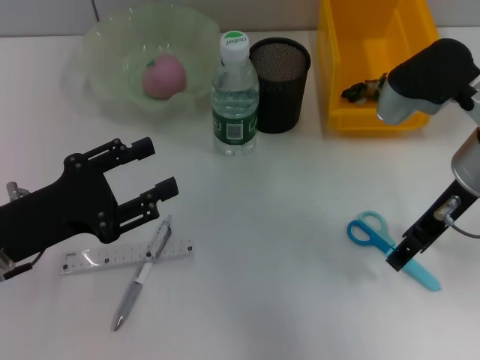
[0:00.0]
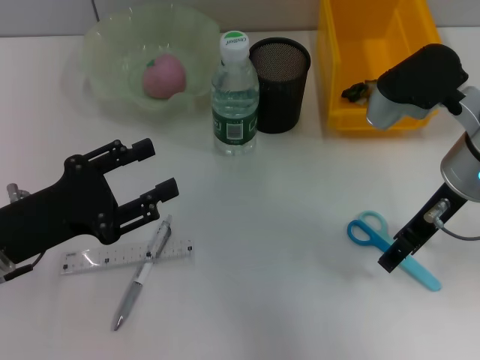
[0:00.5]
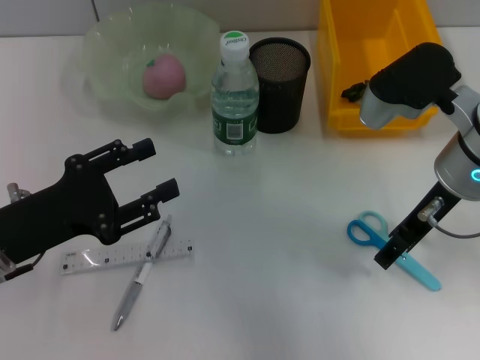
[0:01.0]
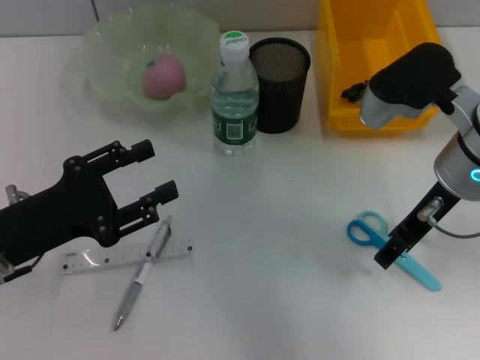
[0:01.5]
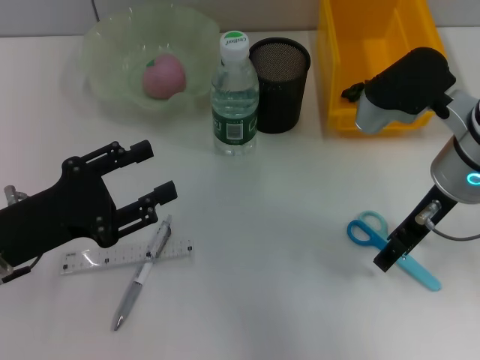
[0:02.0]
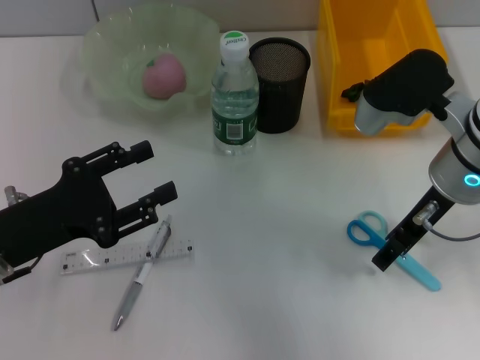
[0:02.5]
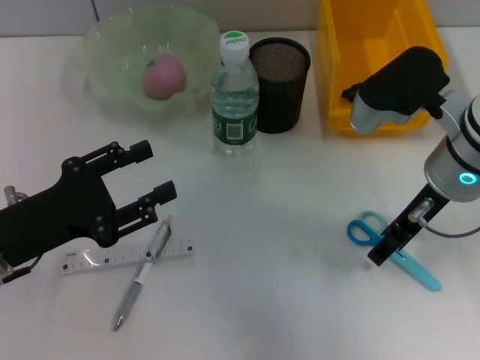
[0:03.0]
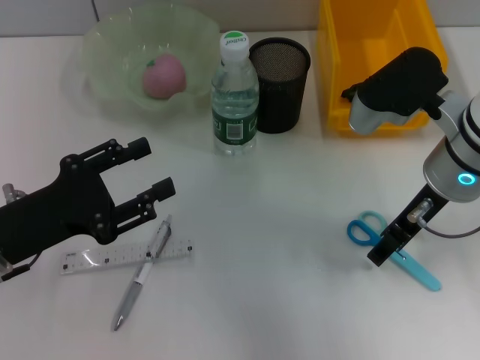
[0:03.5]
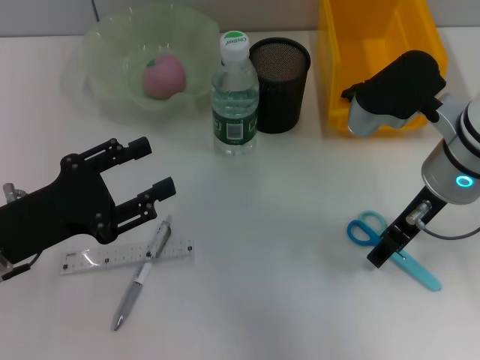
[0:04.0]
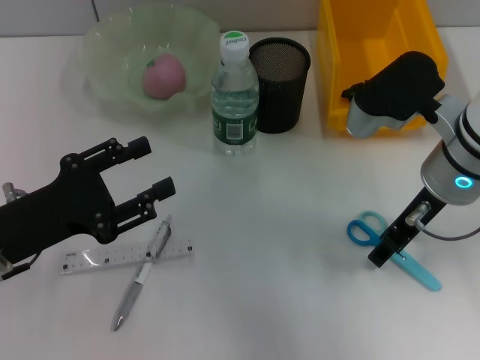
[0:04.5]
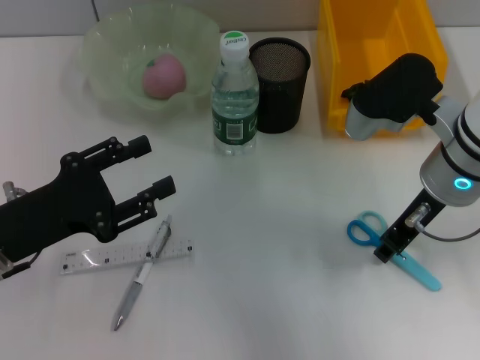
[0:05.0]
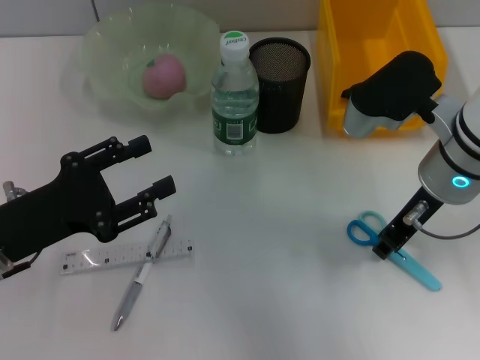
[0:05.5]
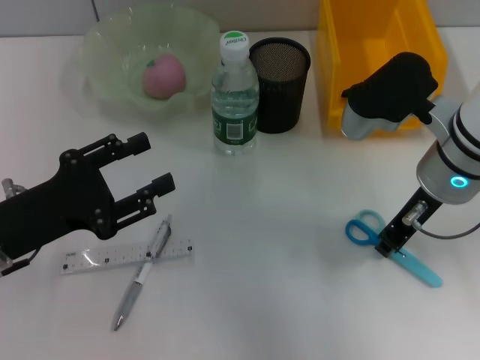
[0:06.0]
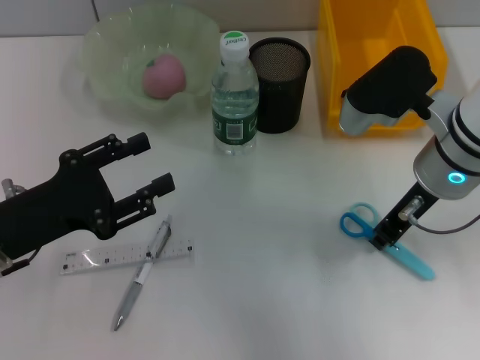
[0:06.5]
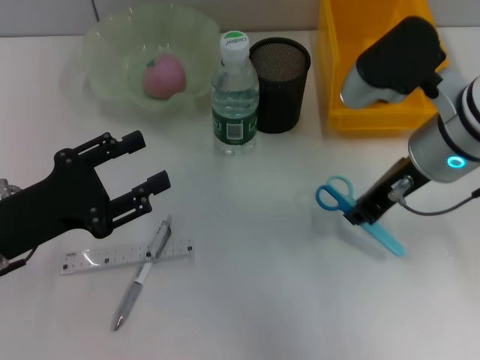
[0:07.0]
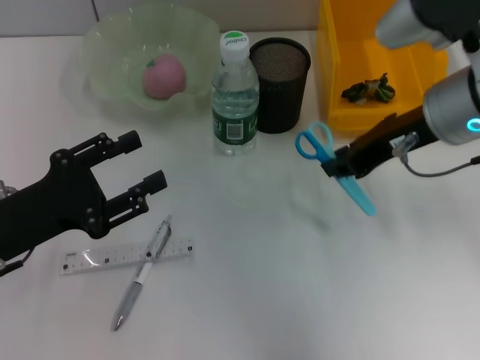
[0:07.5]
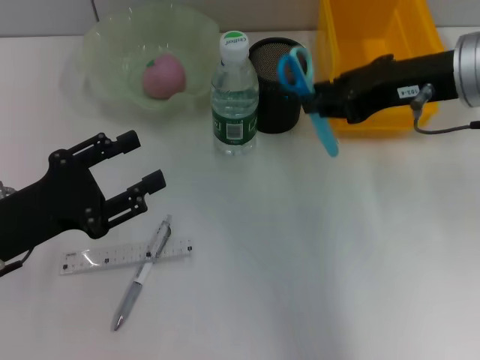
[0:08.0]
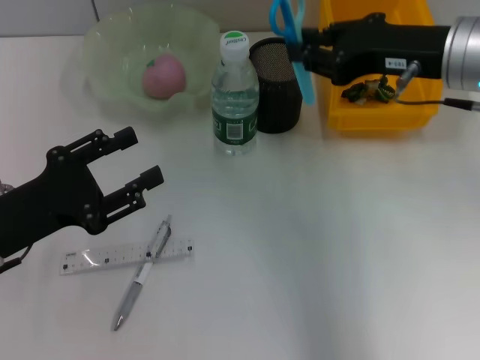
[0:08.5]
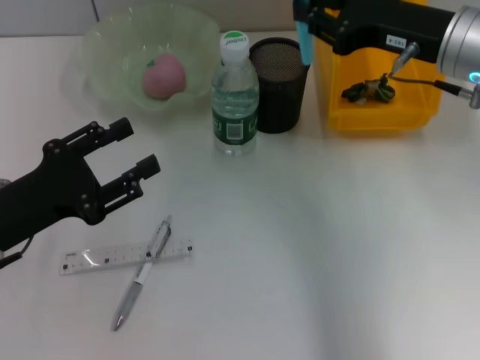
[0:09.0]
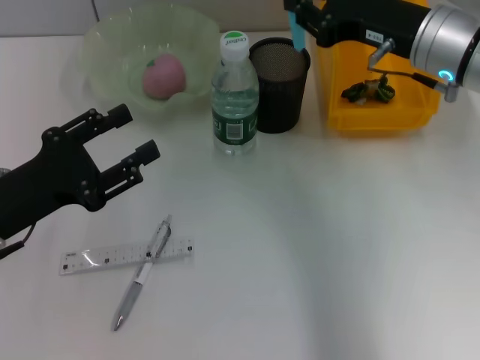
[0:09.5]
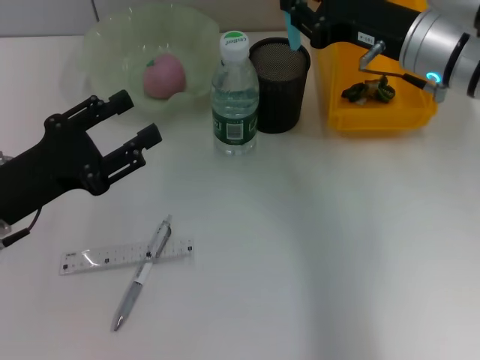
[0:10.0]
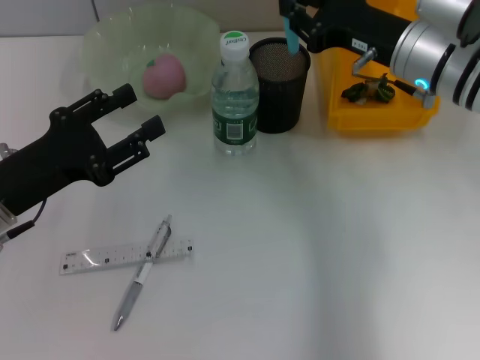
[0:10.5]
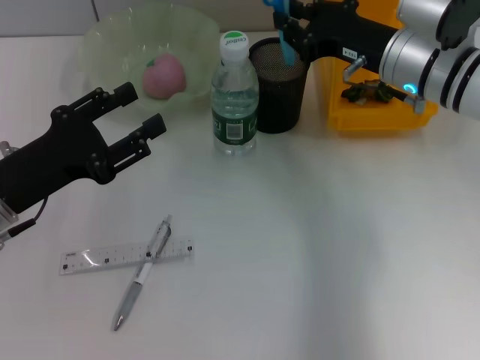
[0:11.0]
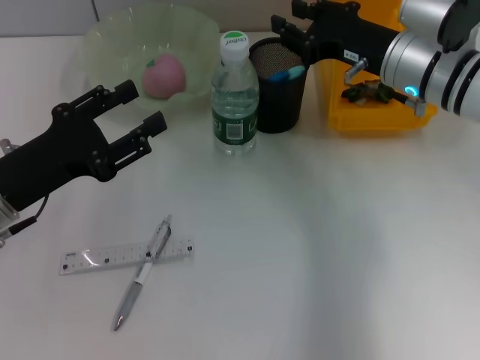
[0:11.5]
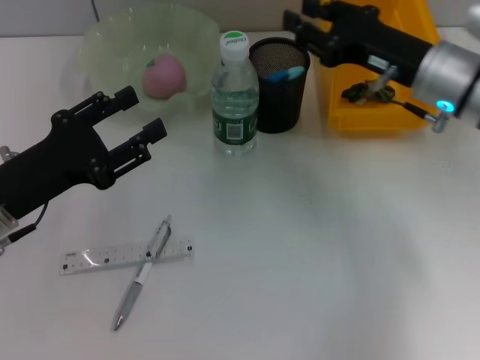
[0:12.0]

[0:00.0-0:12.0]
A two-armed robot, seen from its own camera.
Step, 0:00.0 to 0:06.0: Grab the blue scissors with the right hand.
0:00.0 to 0:02.0: There are only small adjustments of the grippers.
0:02.0 to 0:04.0: The two grippers keep their place.
0:04.0 to 0:06.0: The right gripper closes its fingers.
0:06.0 to 0:08.0: The right gripper goes some 5 cm upward.
0:08.0 to 0:10.0: The right gripper is displaced downward and forward by some 10 cm.
0:10.0 to 0:12.0: The grippers make only small movements.

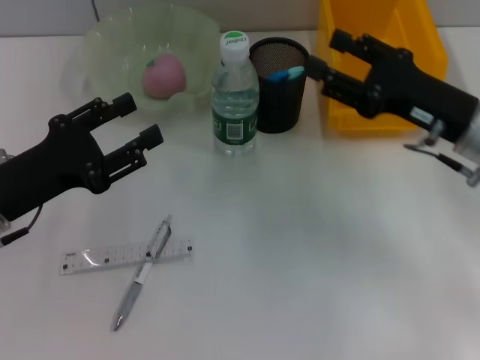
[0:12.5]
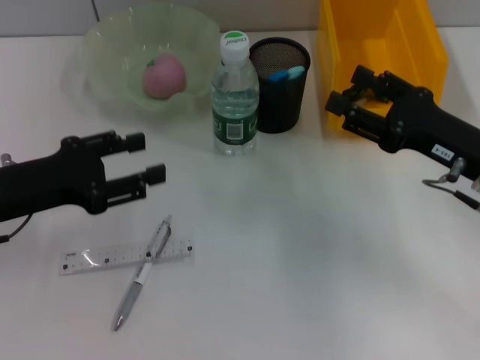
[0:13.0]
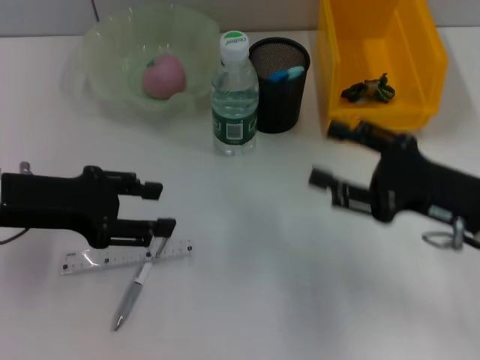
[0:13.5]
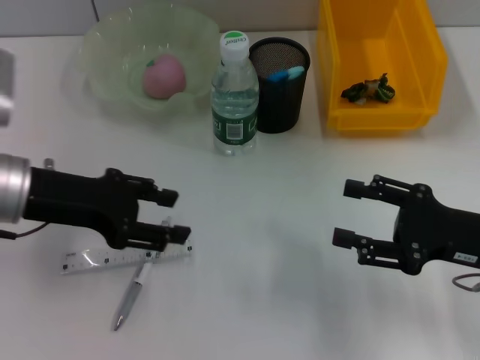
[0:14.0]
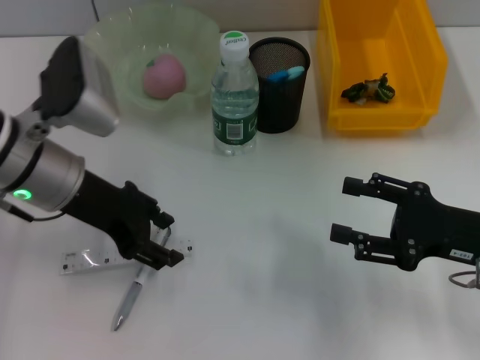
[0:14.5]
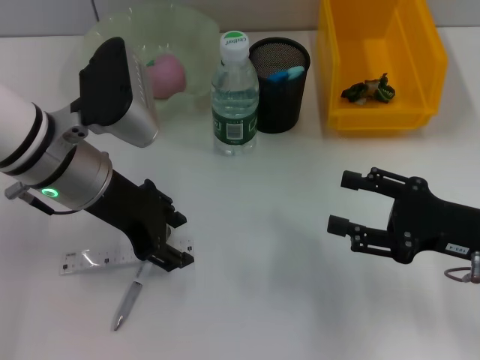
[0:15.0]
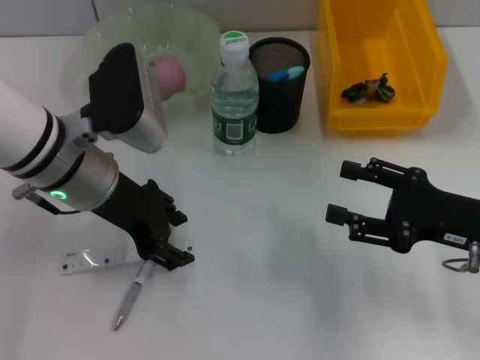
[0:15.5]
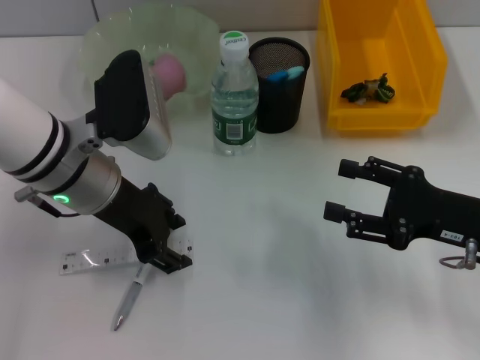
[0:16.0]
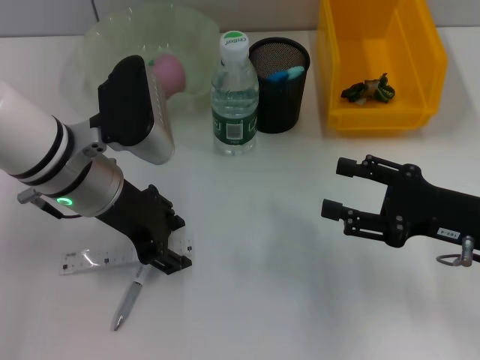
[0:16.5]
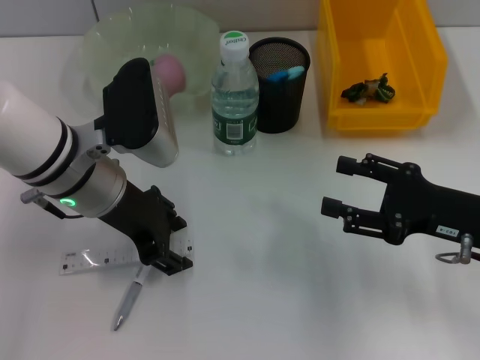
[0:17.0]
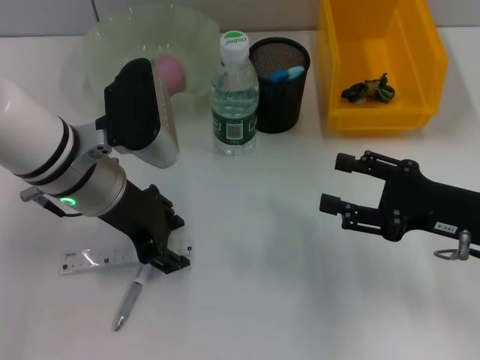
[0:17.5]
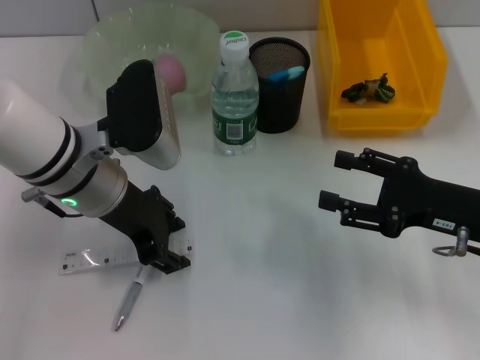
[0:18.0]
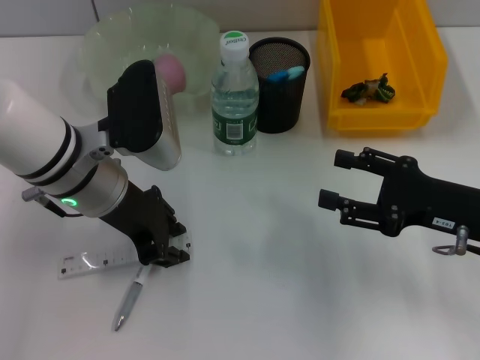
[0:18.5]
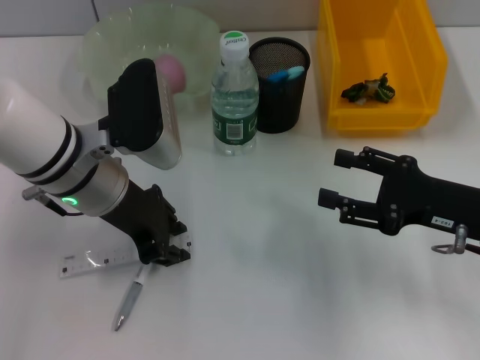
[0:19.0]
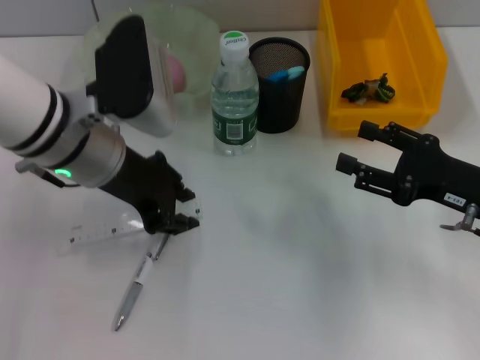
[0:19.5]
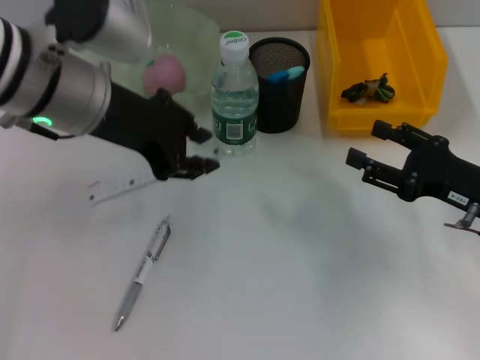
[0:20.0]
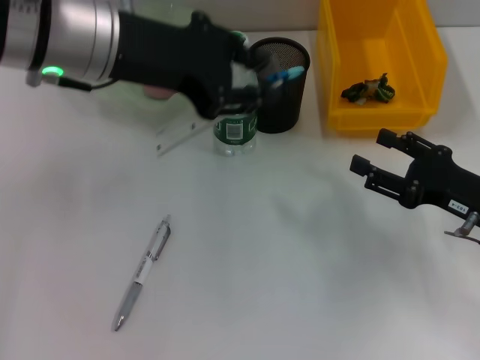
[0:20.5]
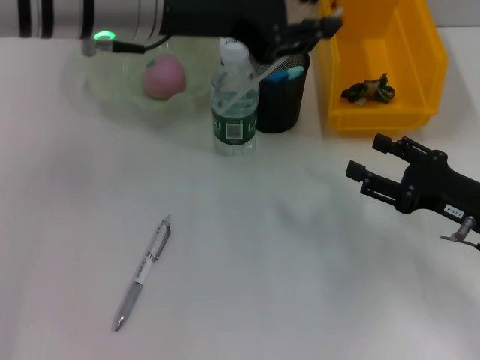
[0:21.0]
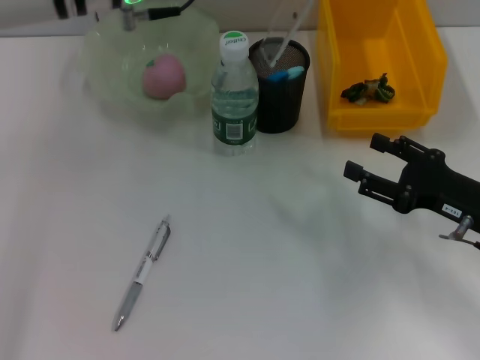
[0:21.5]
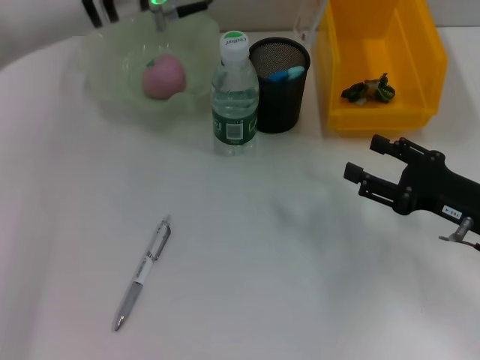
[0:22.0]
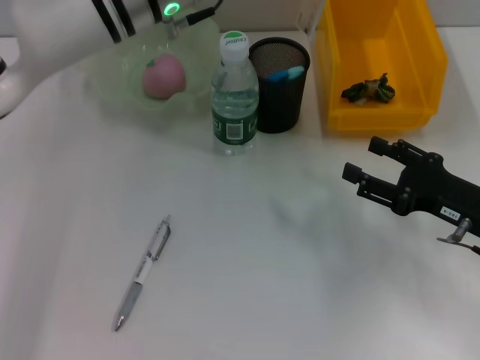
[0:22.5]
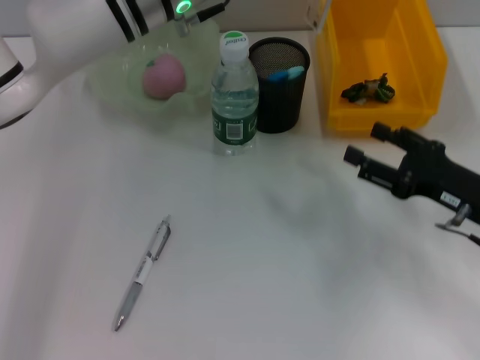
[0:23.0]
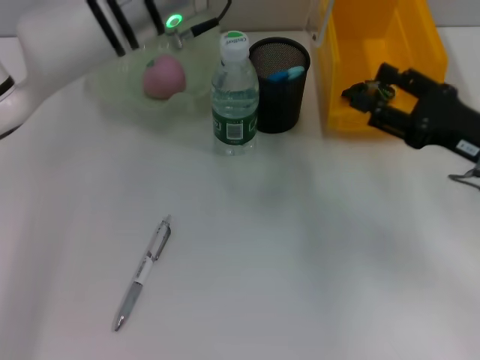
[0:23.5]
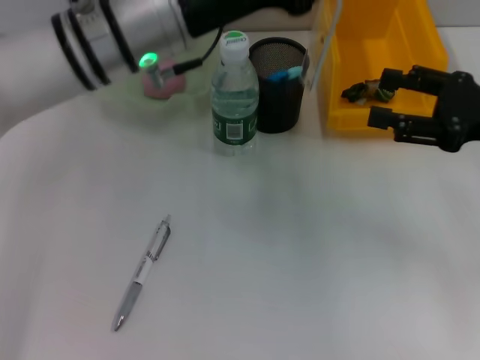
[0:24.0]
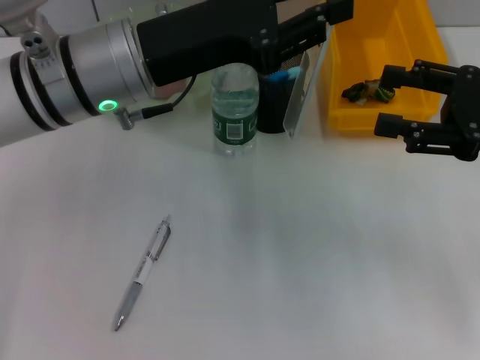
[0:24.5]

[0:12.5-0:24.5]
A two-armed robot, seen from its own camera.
Step, 0:13.0 to 0:18.5: Grab the ruler with the left hand.
0:12.5 to 0:14.5: The right gripper heads backward, covering roughly 10 cm. Meanwhile the left gripper shifts approximately 10 cm to the right, forward and upward.
0:14.5 to 0:16.5: The grippers make only small movements.
0:16.5 to 0:18.5: Neither gripper changes place.
0:18.5 to 0:20.5: The left gripper is displaced upward by some 10 cm.
0:20.5 to 0:22.5: The left gripper heads forward and to the right, covering roughly 10 cm.
0:22.5 to 0:24.5: The left gripper moves backward, some 5 cm. Meanwhile the right gripper heads upward, covering about 10 cm.

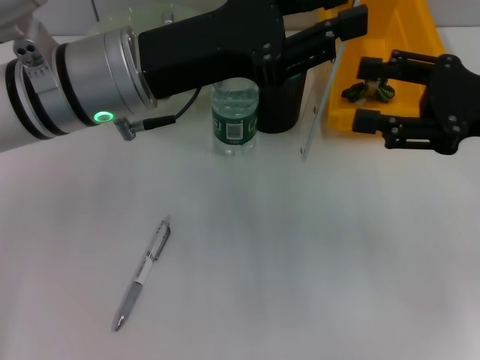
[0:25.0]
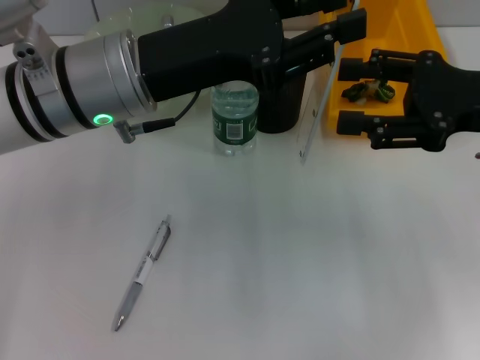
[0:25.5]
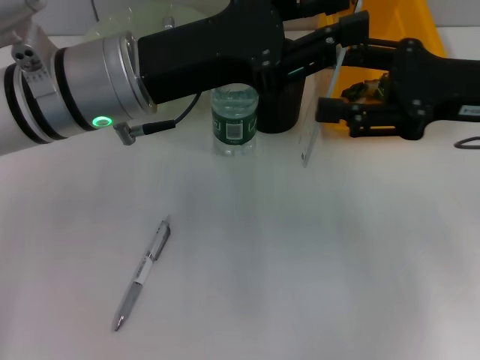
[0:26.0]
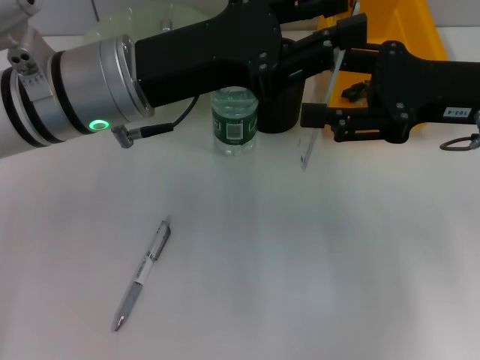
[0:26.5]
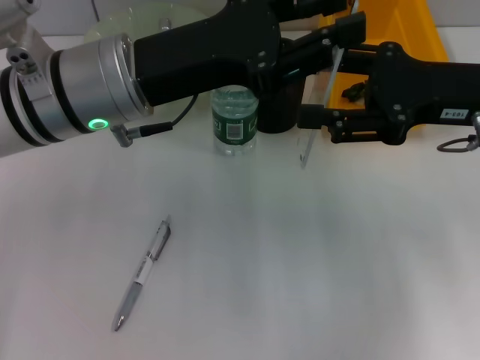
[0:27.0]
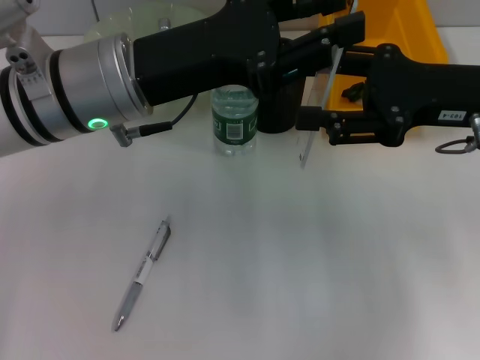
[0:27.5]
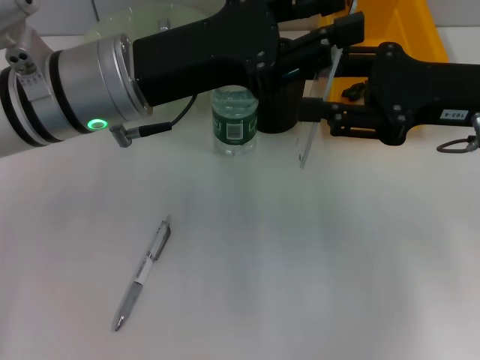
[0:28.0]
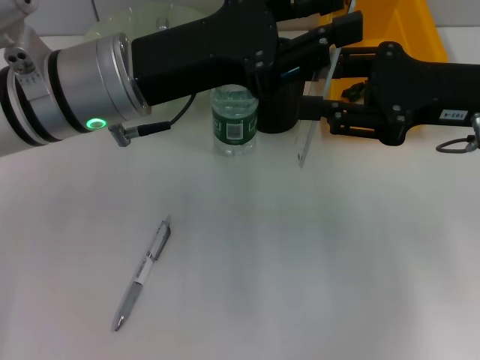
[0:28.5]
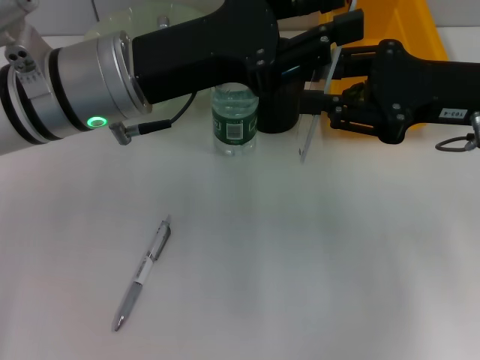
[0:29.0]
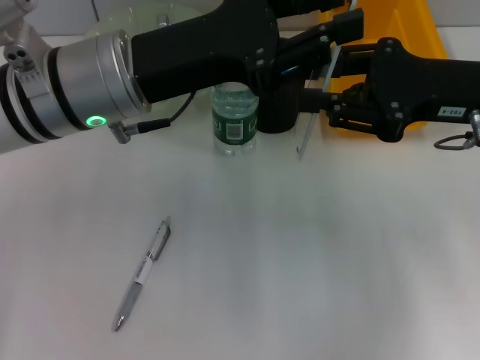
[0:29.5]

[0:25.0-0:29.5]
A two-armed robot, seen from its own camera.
0:25.0 to 0:27.0: The grippers stay close to where they were, moving slightly.
0:27.0 to 0:29.5: The right gripper closes.
